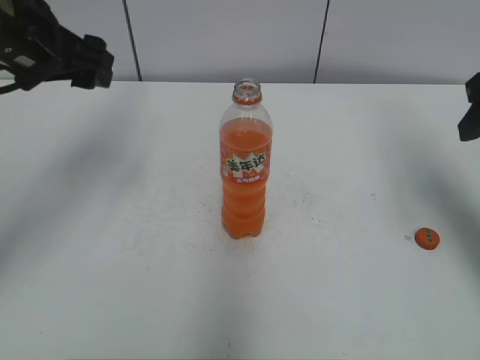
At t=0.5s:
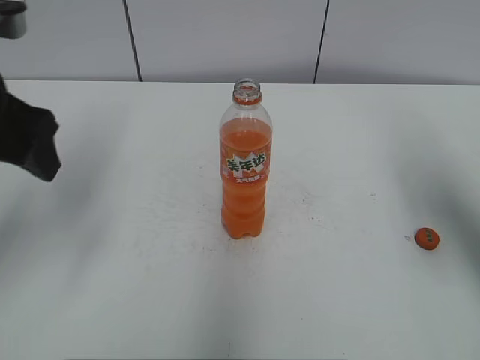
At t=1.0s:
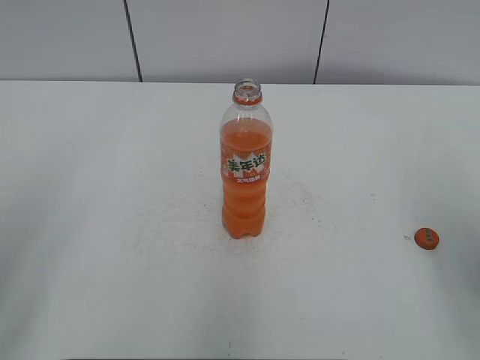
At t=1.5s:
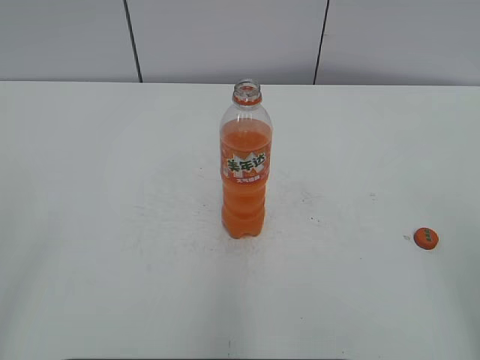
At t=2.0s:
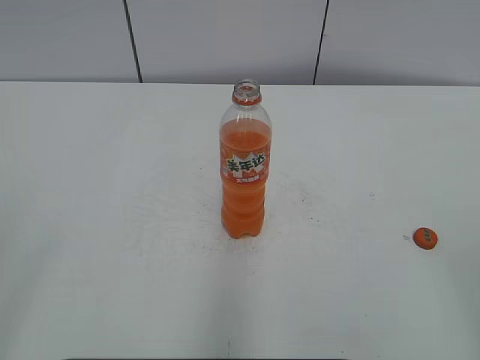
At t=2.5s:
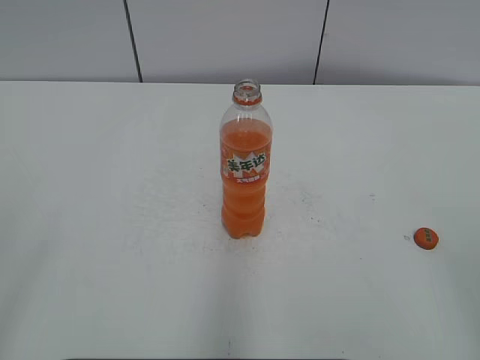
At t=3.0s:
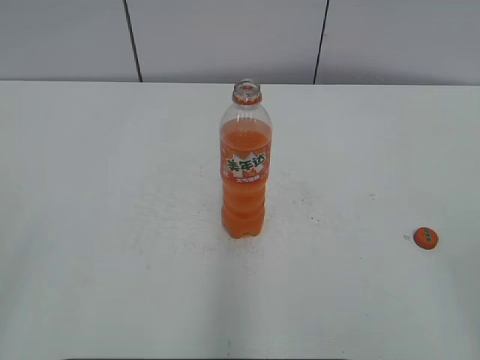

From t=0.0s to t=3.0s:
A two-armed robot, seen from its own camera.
From t=0.0s to t=1.5s: The two grippers go about 30 cm backward.
